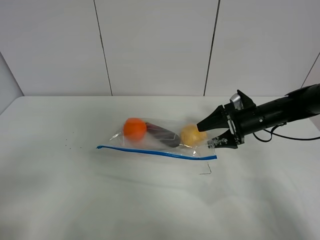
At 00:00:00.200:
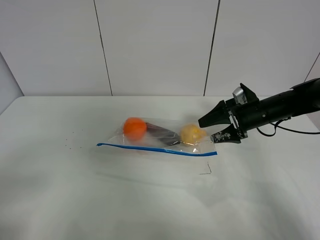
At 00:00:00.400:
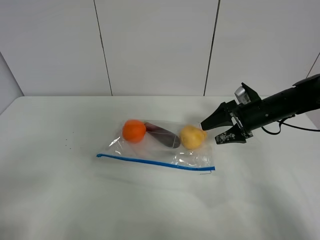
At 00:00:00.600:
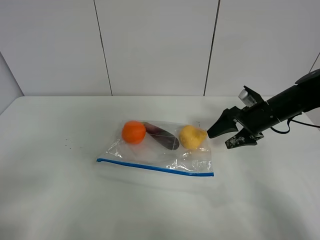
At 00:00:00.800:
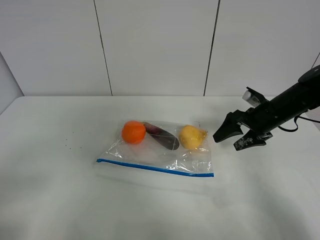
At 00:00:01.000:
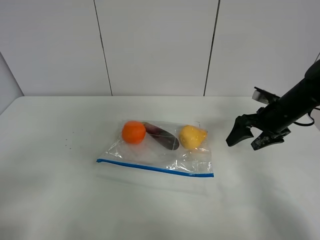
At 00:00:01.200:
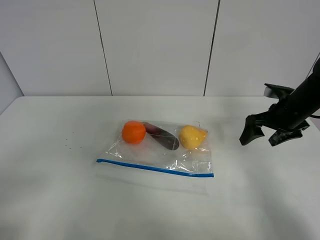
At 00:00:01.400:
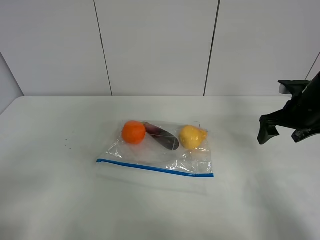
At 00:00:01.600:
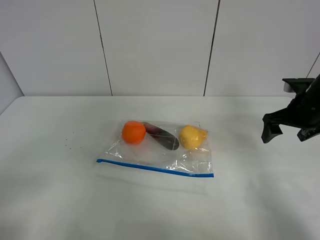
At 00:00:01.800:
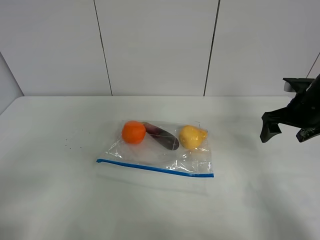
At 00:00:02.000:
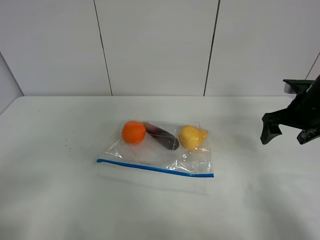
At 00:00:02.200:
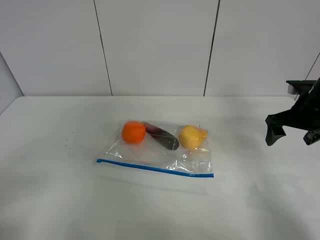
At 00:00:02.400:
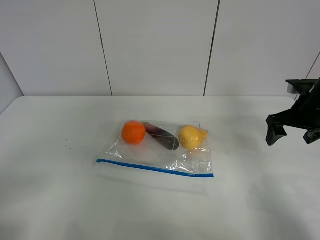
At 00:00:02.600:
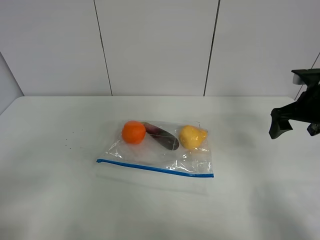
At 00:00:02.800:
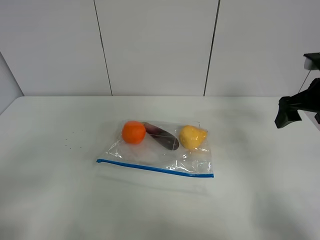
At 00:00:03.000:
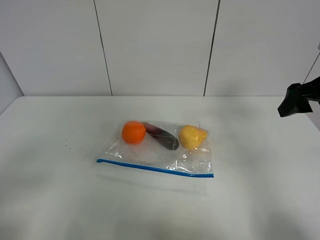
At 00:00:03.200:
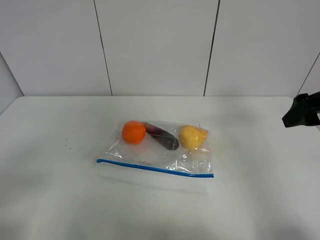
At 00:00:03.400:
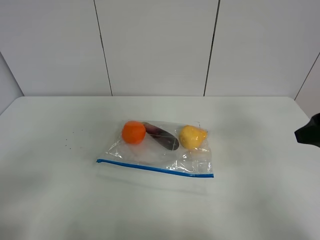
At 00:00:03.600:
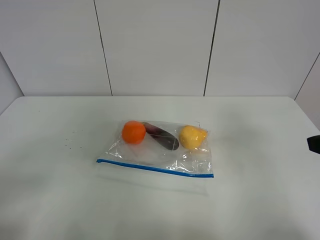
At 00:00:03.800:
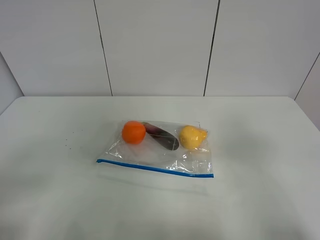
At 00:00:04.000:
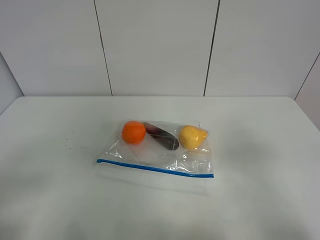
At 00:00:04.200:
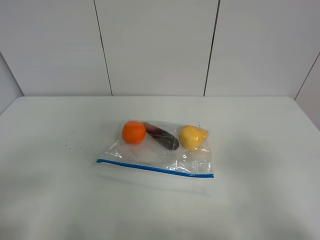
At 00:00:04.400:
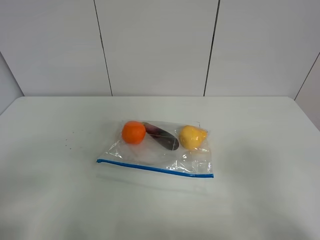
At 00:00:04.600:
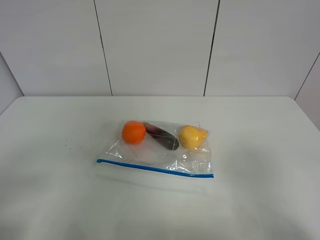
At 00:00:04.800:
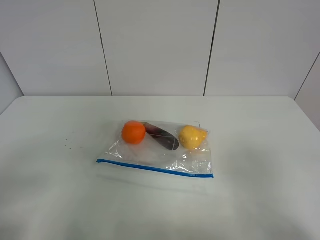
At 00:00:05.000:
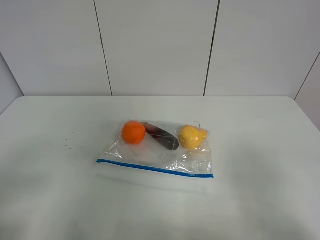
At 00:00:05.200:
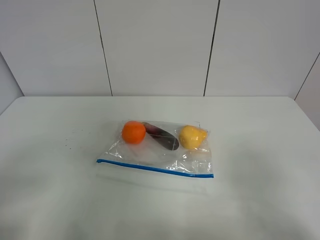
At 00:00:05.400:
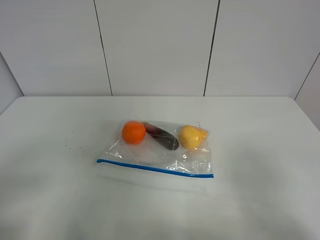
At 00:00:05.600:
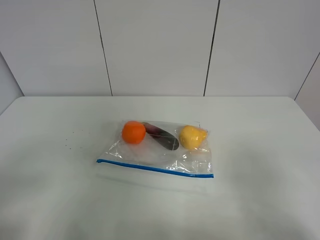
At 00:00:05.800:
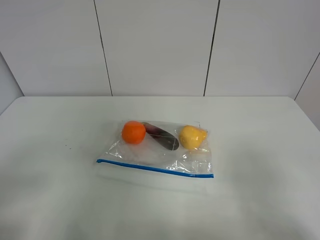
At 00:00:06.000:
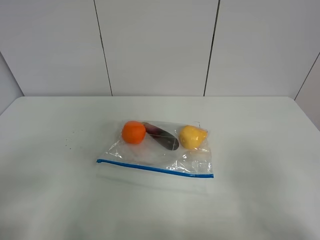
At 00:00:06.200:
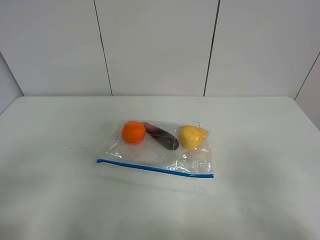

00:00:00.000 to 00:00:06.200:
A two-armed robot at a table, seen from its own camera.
00:00:00.000 to 00:00:01.600: The right gripper shifts approximately 10 cm upward and to the right.
00:00:01.600 to 00:00:03.200: The right gripper is displaced backward and upward by some 15 cm.
00:00:03.200 to 00:00:04.600: The right gripper moves backward, approximately 25 cm.
